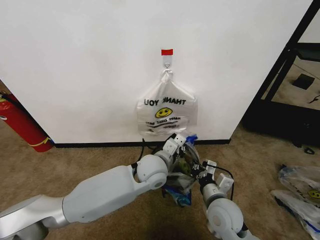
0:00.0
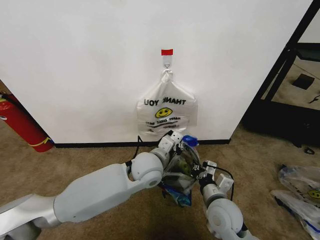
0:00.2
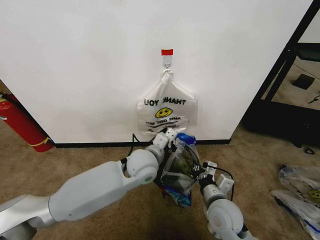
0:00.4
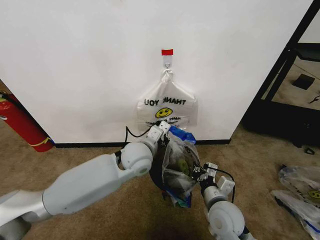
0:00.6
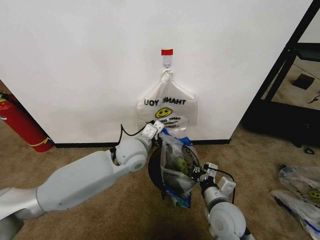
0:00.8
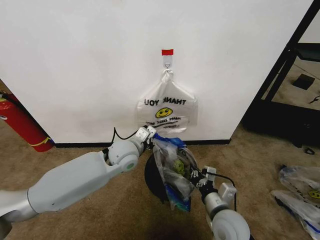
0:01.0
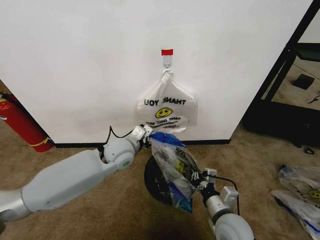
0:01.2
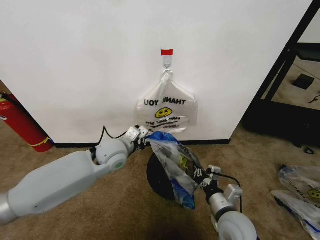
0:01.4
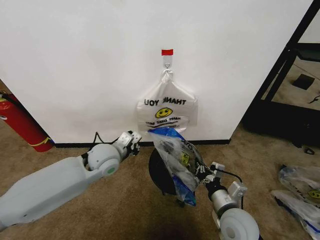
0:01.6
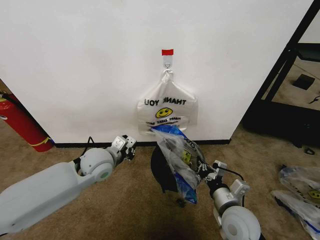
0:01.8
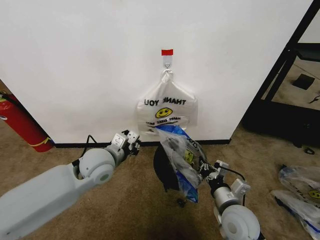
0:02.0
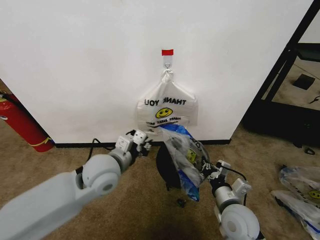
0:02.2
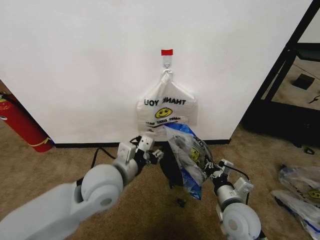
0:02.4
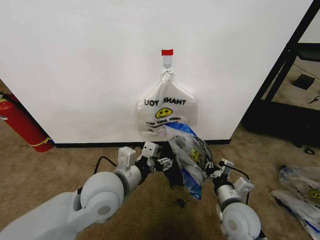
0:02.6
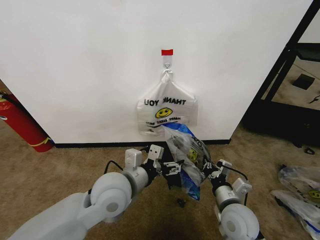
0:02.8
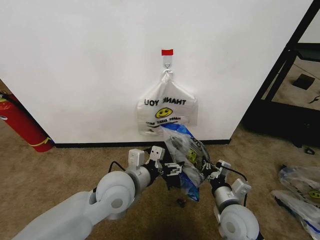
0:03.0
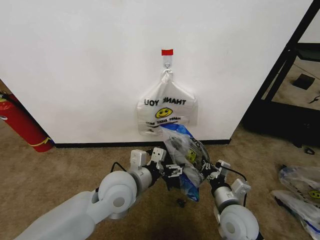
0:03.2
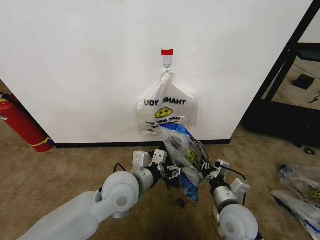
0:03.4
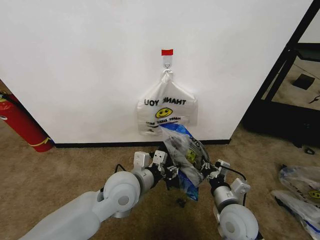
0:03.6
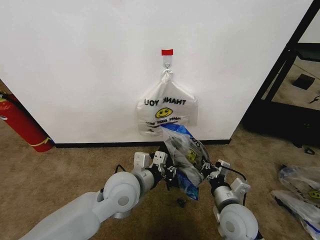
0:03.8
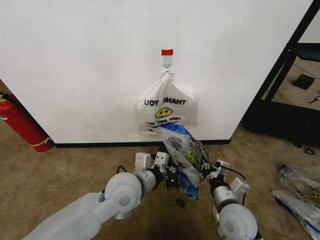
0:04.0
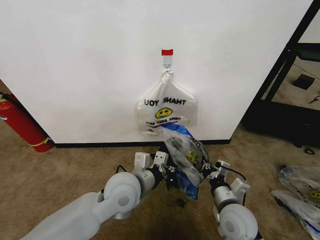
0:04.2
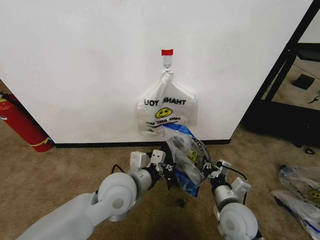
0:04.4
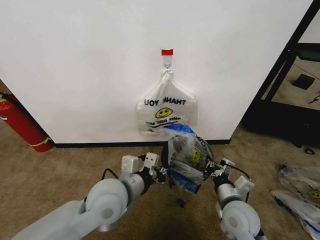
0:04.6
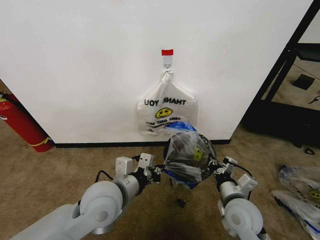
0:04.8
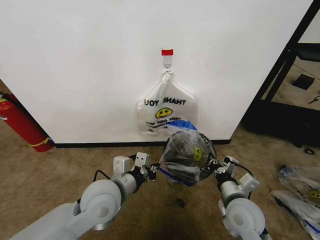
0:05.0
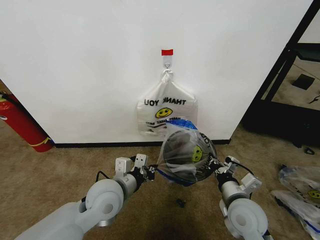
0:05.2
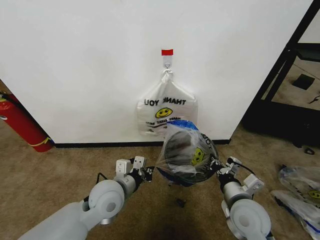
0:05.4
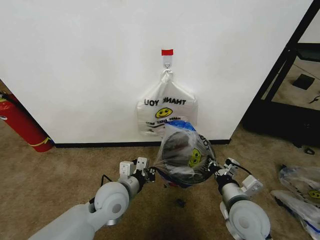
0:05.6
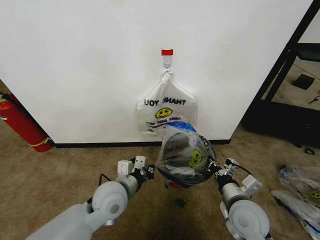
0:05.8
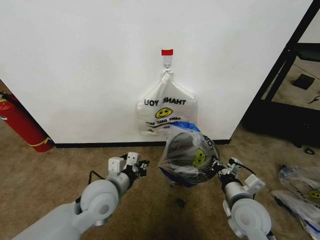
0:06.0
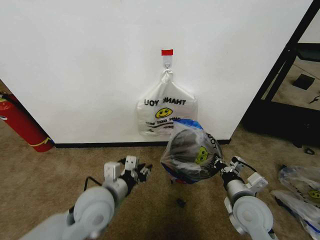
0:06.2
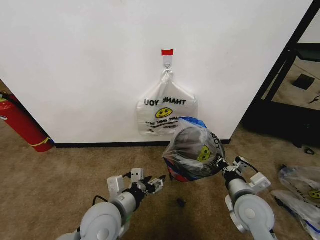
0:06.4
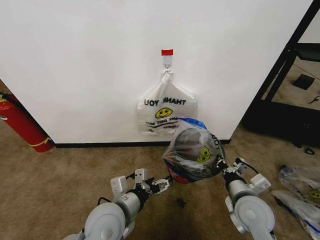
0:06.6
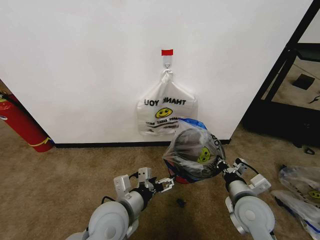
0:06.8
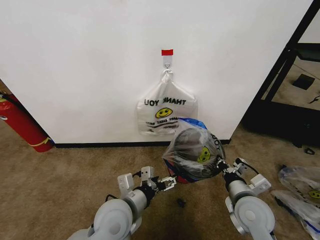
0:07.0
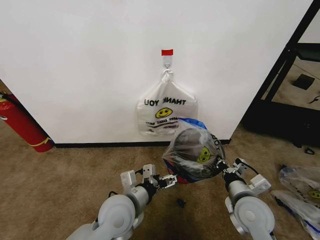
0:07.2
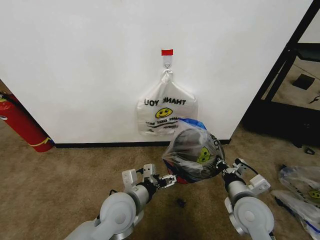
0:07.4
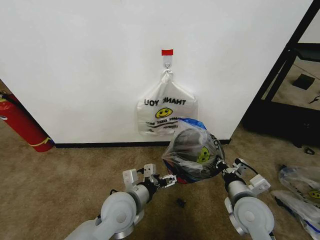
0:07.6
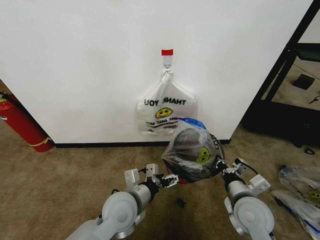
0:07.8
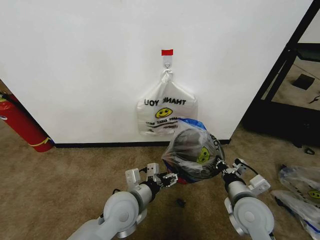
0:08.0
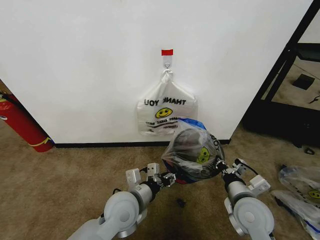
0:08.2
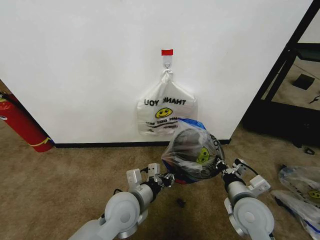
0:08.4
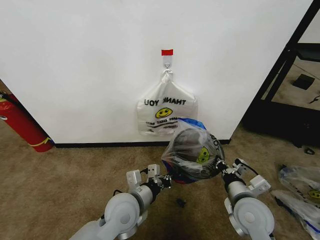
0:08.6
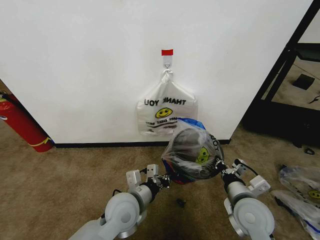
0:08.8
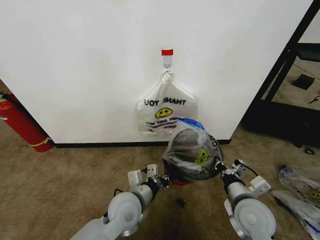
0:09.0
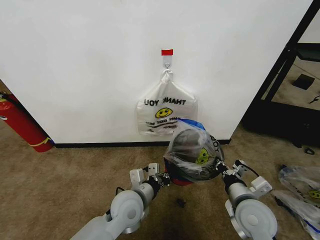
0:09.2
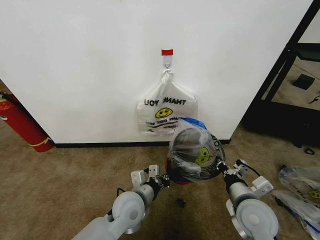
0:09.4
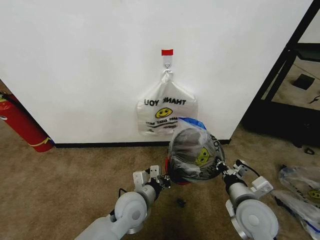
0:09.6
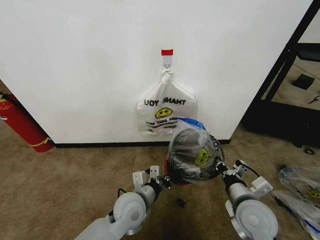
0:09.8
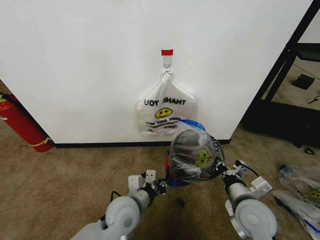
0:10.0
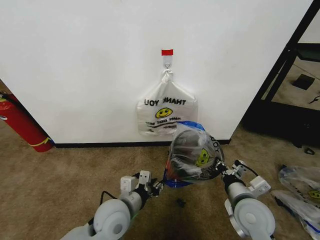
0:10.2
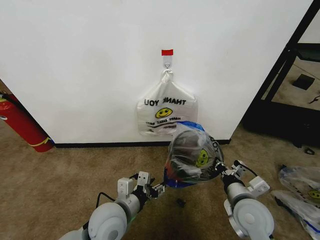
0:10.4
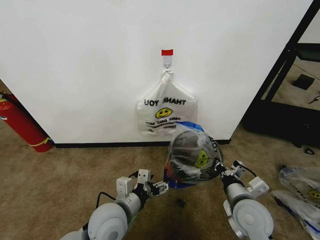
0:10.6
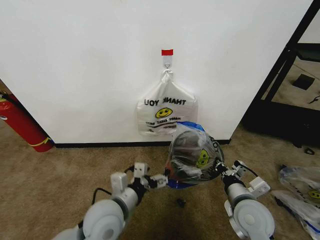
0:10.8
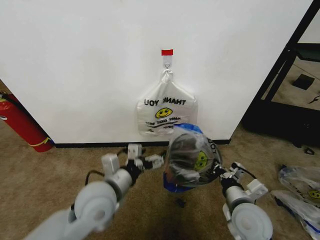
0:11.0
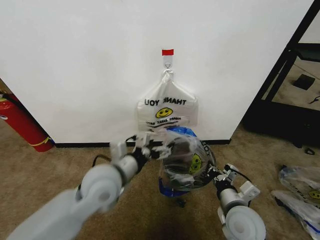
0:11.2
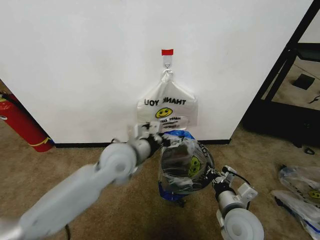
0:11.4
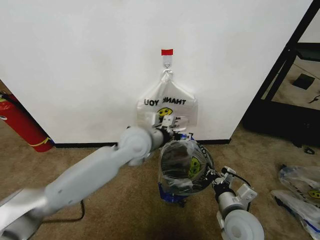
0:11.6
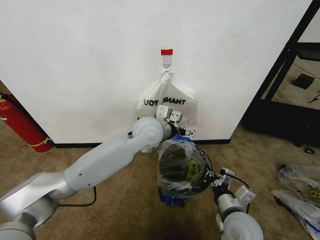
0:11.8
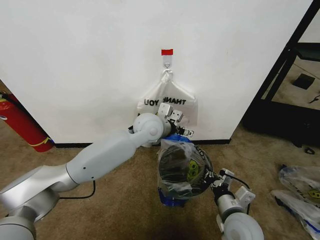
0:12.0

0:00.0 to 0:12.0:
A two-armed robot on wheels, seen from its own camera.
Task of the whole recording: Pick up the garbage bag from the wall and place it over the trash bin.
0:00.0 to 0:01.6: The left gripper heads to the left, covering approximately 15 cm.
0:01.6 to 0:03.0: The left gripper shifts some 15 cm backward and to the right, and opens its fingers.
0:03.0 to 0:04.4: The left gripper closes.
0:04.4 to 0:06.0: The left gripper moves to the left, some 5 cm.
0:06.0 to 0:07.6: The left gripper shifts some 5 cm to the right, and opens its fingers.
0:07.6 to 0:09.0: The left gripper closes its fingers.
0:09.0 to 0:10.4: The left gripper shifts by roughly 5 cm, and opens its fingers.
0:10.4 to 0:12.0: The left gripper shifts roughly 25 cm forward and upward, and opens.

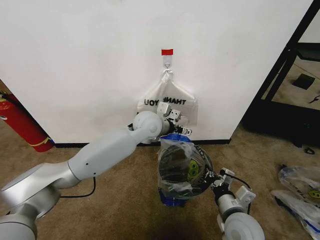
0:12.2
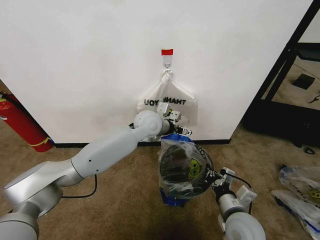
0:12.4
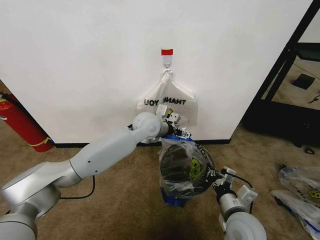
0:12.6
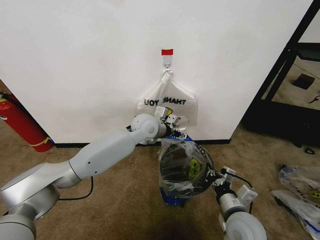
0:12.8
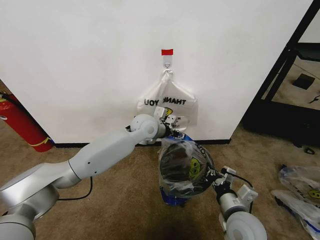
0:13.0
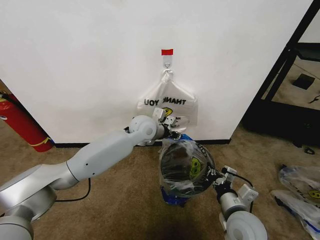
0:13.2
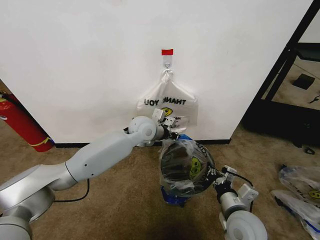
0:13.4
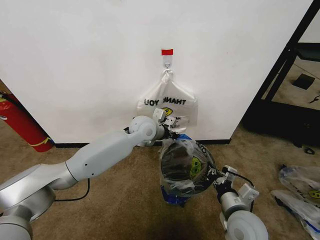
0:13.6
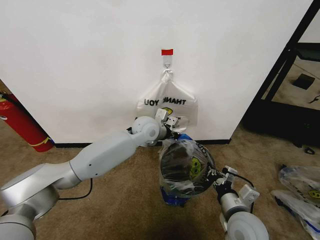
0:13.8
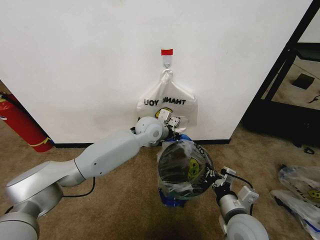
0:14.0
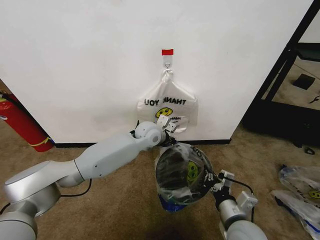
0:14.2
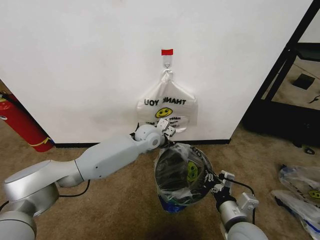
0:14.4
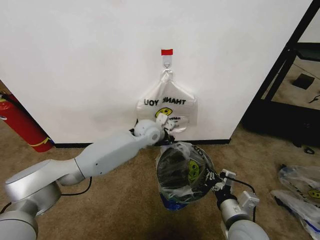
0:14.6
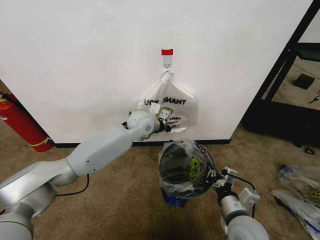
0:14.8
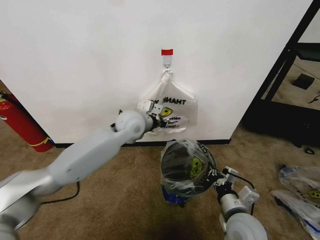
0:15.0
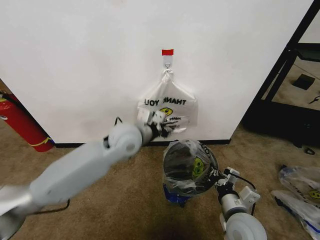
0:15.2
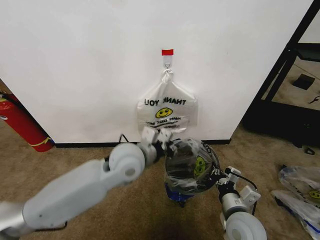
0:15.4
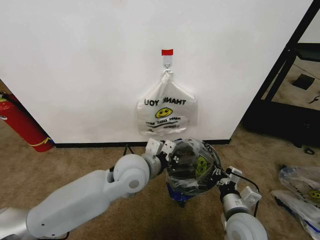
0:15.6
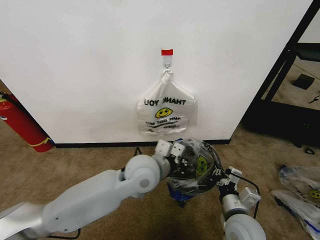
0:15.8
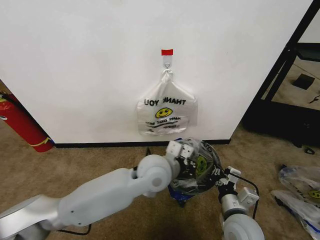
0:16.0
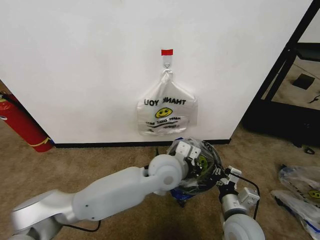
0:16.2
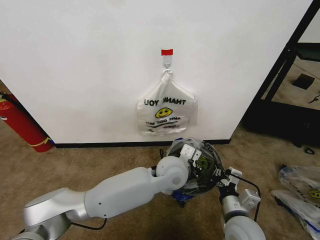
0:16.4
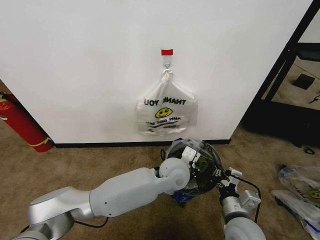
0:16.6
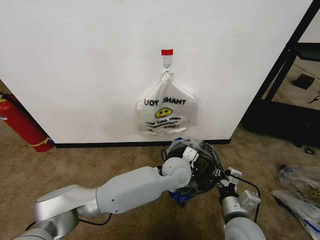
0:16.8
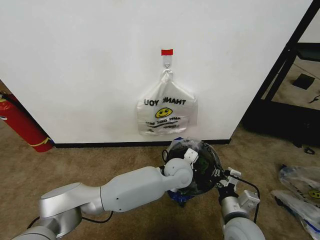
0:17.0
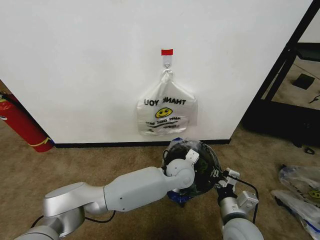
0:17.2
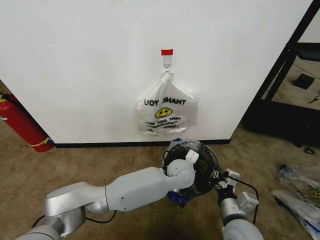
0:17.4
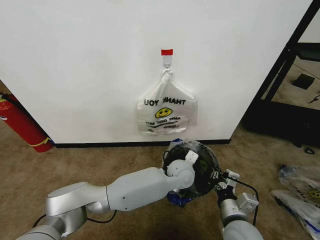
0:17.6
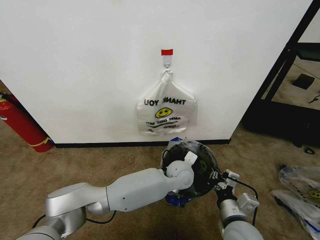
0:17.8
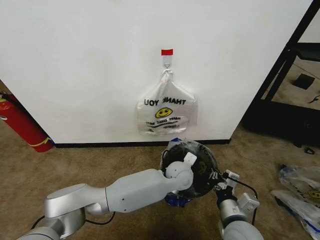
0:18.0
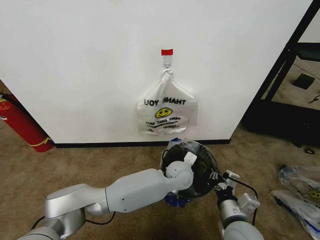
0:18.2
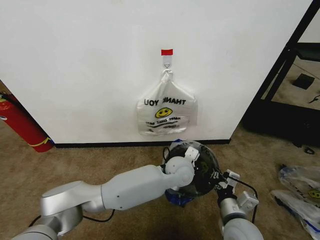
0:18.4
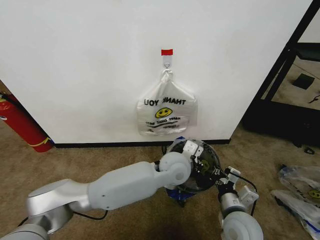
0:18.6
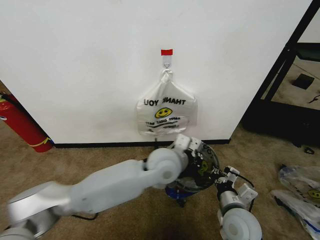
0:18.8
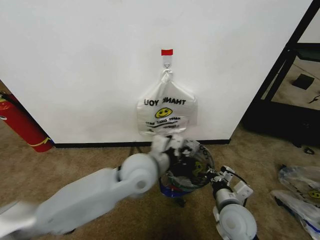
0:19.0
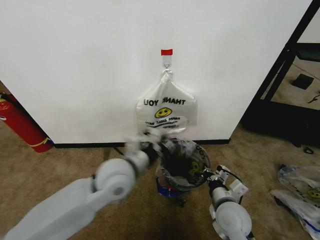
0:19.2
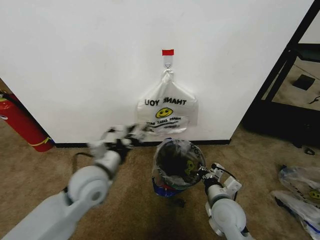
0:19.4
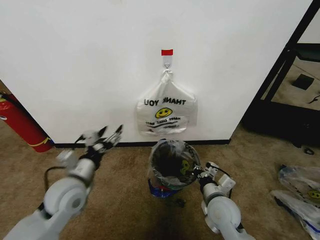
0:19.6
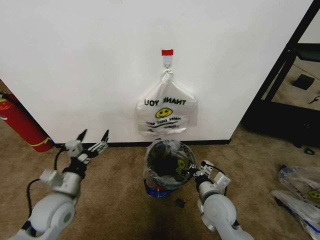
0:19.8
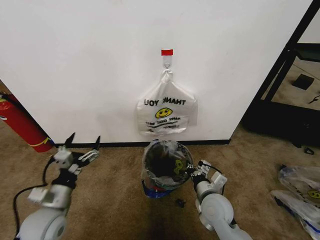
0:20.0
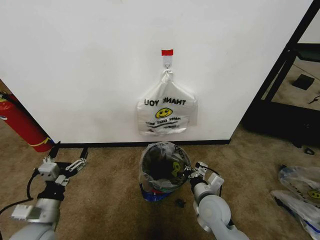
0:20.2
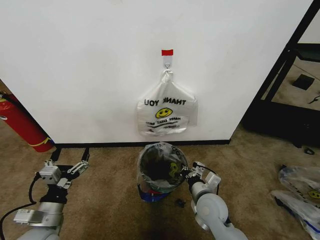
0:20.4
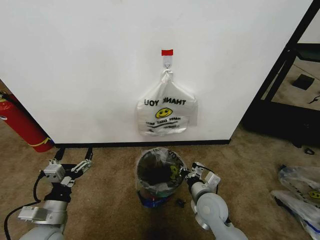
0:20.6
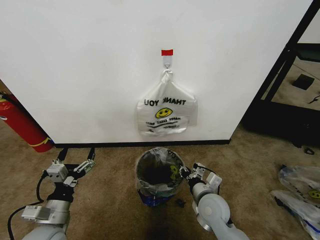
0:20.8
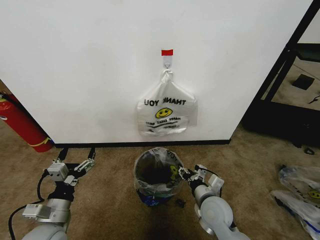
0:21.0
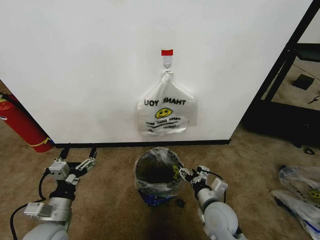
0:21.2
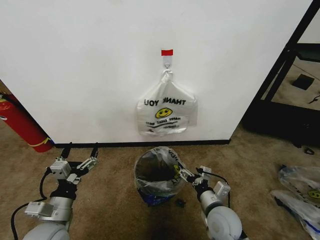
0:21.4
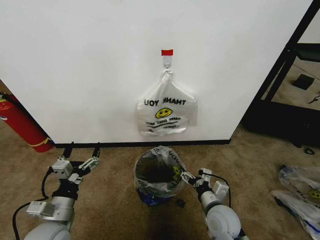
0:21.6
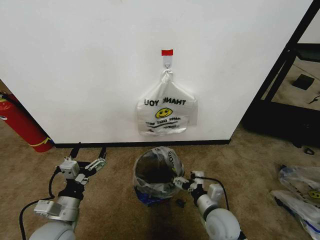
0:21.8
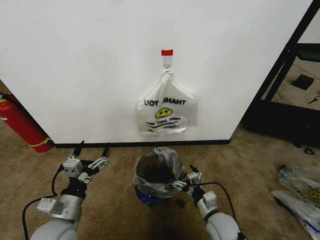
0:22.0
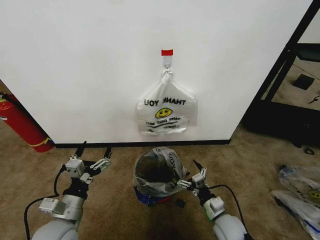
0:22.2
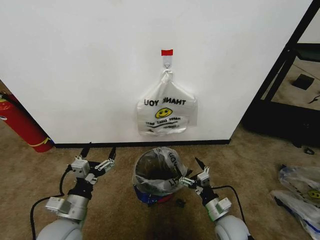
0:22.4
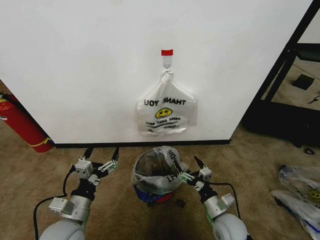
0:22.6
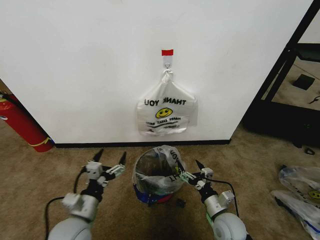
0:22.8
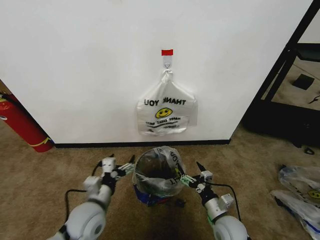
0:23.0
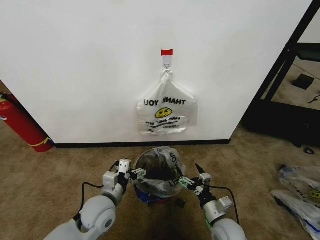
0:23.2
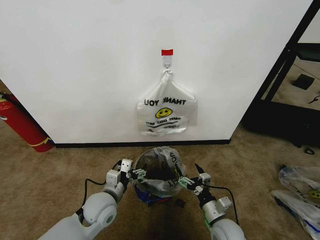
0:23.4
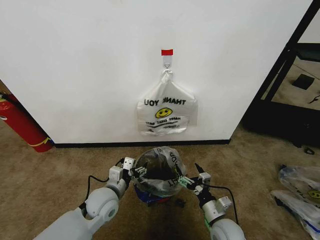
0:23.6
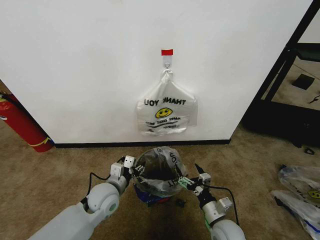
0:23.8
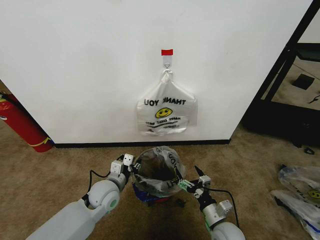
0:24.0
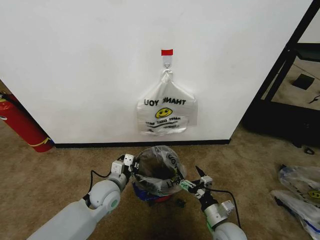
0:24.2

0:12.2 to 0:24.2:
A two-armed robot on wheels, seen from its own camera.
Task of the whole recording: Pick up the garbage bag from the wall and place it over the trash bin.
0:12.2 to 0:13.8: The left gripper closes up.
0:13.8 to 0:15.2: The left gripper is displaced backward by approximately 10 cm, and opens up.
0:15.2 to 0:16.6: The left gripper moves to the right and downward, approximately 20 cm, and closes.
0:16.6 to 0:18.2: The left gripper is displaced downward by some 5 cm.
0:18.2 to 0:19.8: The right gripper heads forward, covering some 10 cm; the left gripper travels to the left by about 35 cm, and opens up.
0:19.8 to 0:21.2: The left gripper goes some 5 cm backward. The right gripper opens its fingers.
0:21.2 to 0:22.6: The right gripper shifts some 5 cm downward.
0:22.6 to 0:24.2: The left gripper goes approximately 15 cm forward and to the right, and closes its fingers.
